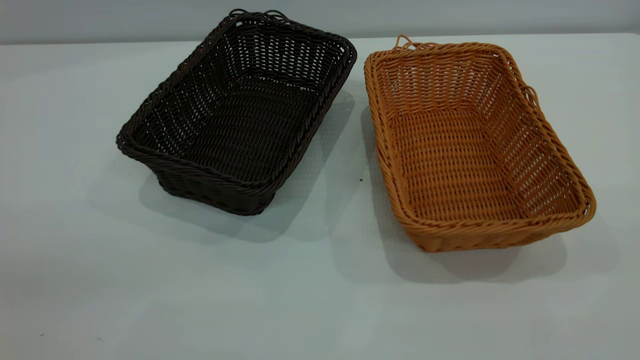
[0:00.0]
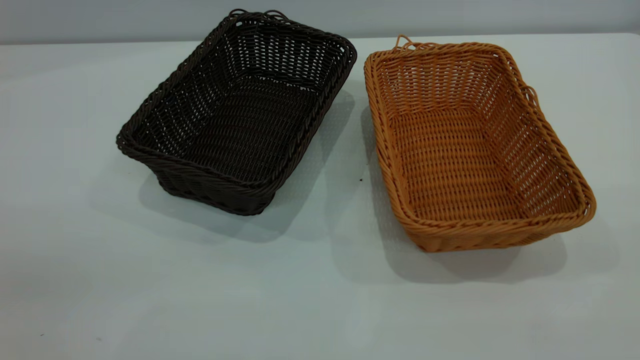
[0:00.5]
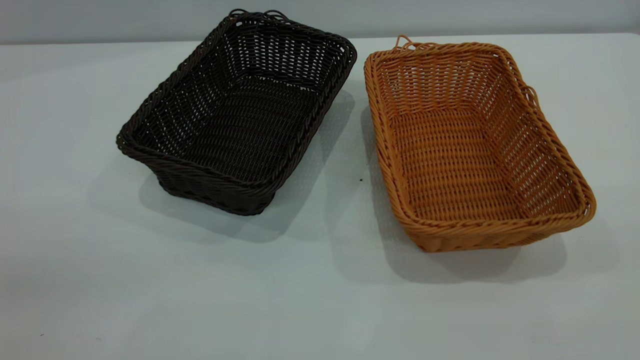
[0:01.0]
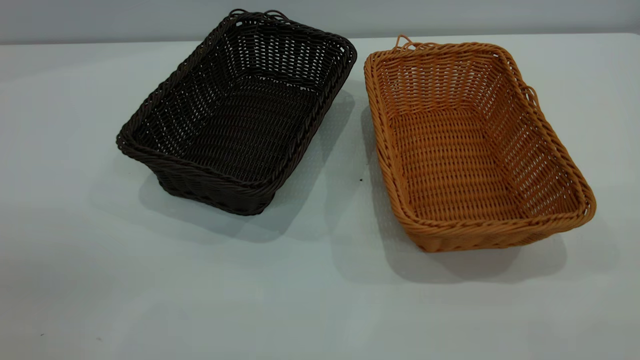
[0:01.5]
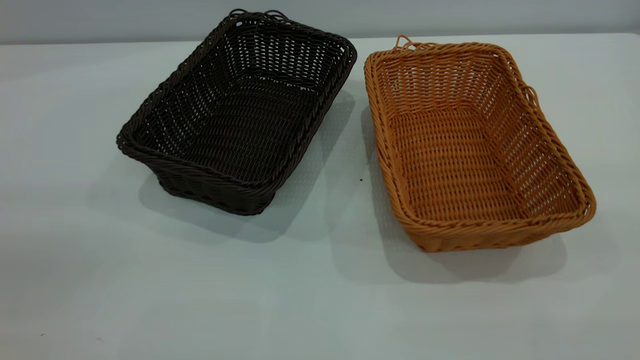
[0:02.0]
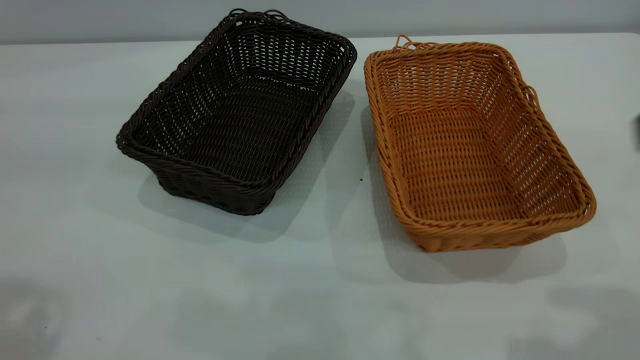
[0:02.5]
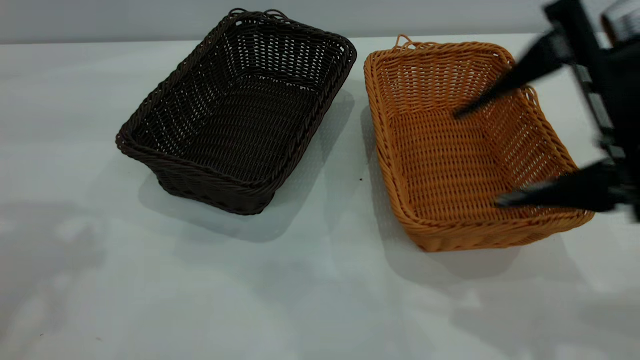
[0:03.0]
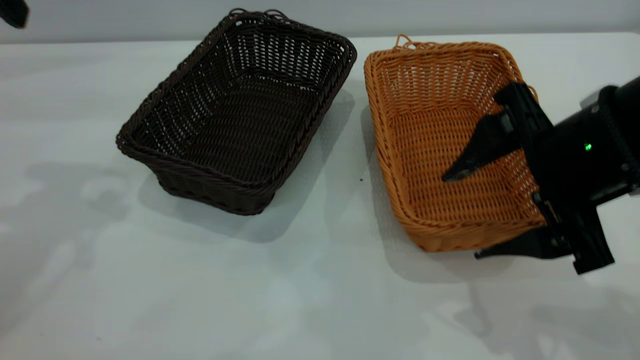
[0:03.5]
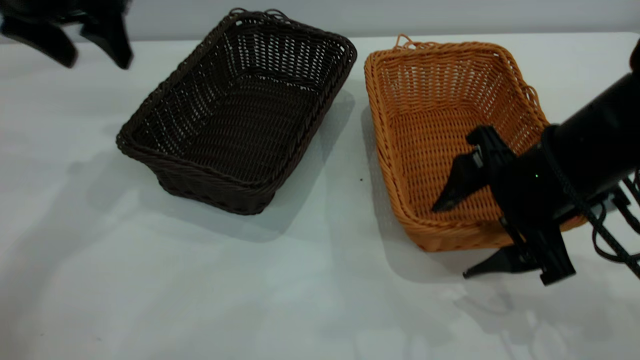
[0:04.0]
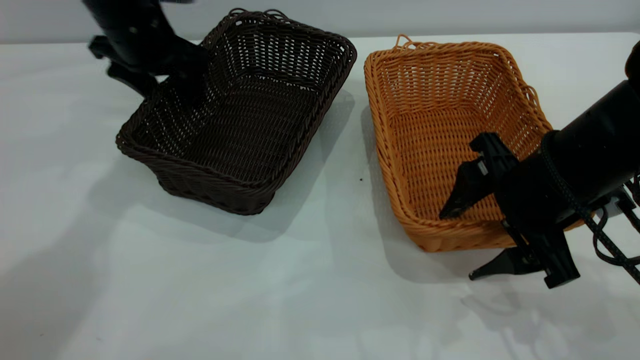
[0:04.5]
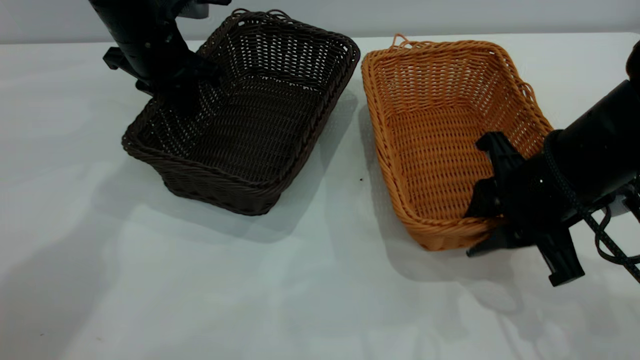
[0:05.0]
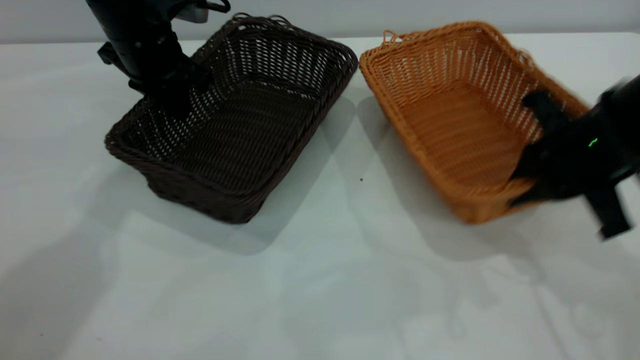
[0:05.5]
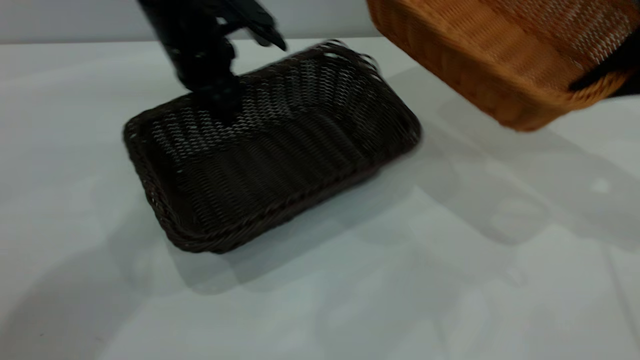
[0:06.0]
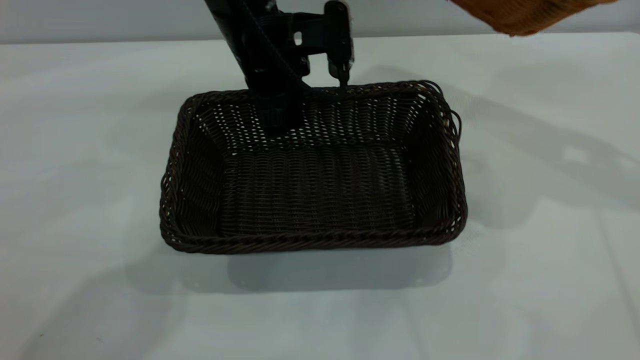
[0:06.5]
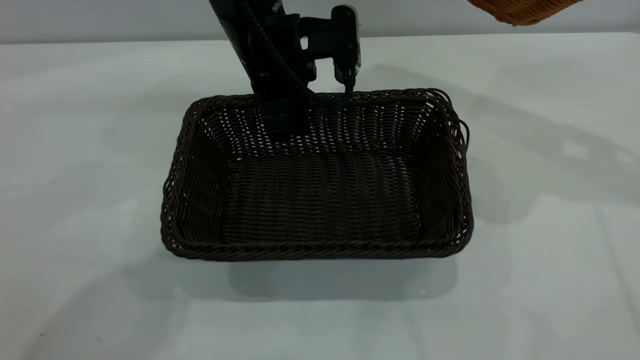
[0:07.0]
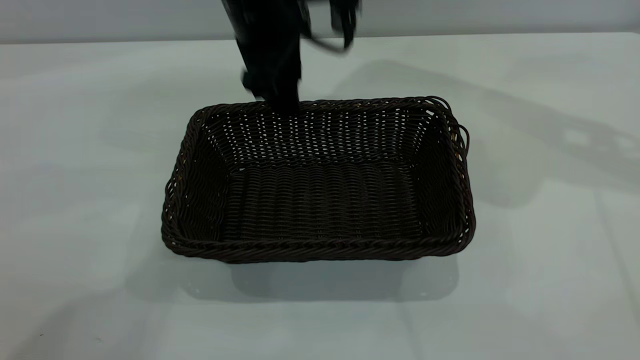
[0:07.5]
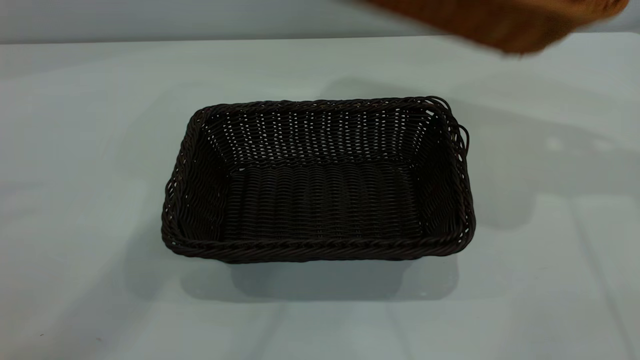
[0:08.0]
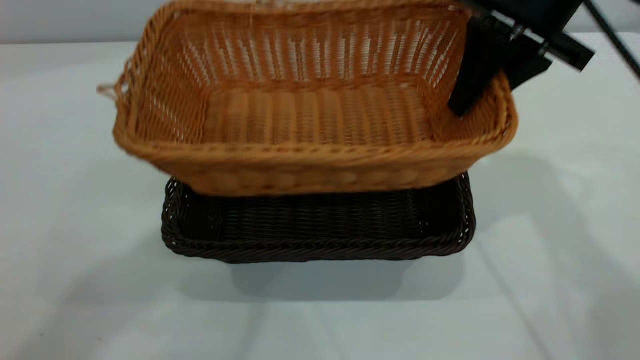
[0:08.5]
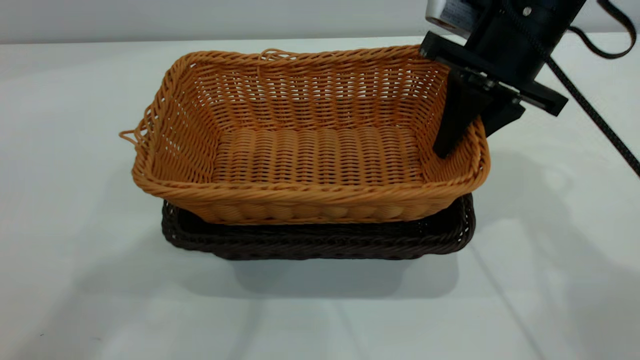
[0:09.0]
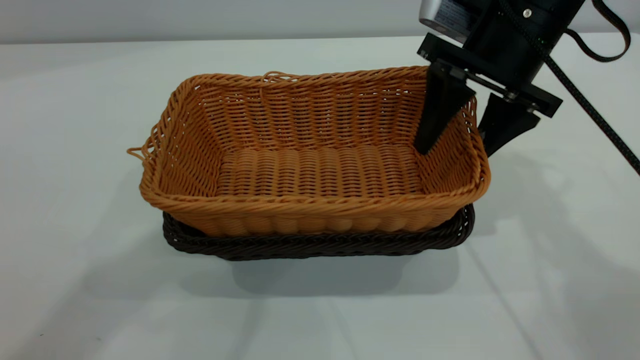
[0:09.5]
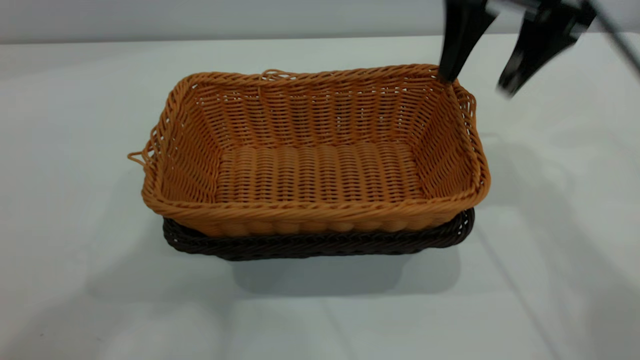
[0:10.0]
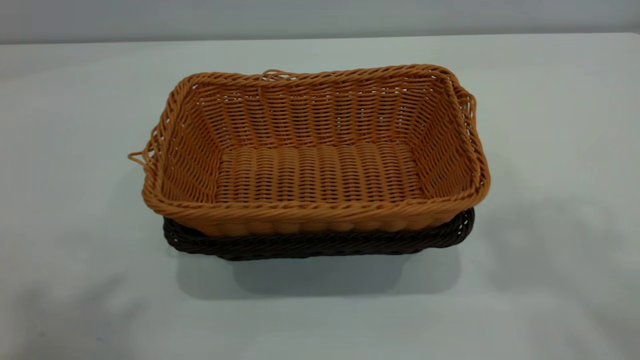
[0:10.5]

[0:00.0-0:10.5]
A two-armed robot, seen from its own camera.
Task of the whole recording: the left gripper grasp the black basket and place it in the center of the table, the right gripper grasp the brown basket and place it inside the black one.
Step, 0:00.0 to 0:05.5: Pick up the light basket with the right gripper.
Step, 0:06.0 to 0:07.0: Move the dark basket to the center of view.
Step, 0:08.0 to 0:10.0: Place the light basket on the dark basket.
0:02.0 to 0:04.0: The right gripper is displaced downward and forward by roughly 35 cm. The left gripper travels forward by about 40 cm.
0:04.0 to 0:06.5: The left gripper travels to the right and downward by roughly 20 cm, and closes its fingers; the right gripper goes some 25 cm upward, to the right and forward, and closes.
0:06.5 to 0:08.5: The left gripper heads upward, covering some 35 cm, and opens up. Meanwhile the right gripper heads to the left and downward, covering about 15 cm.
0:08.5 to 0:10.5: The left gripper travels backward, upward and to the left by about 20 cm; the right gripper heads upward and backward, covering approximately 30 cm, and opens its fingers.
